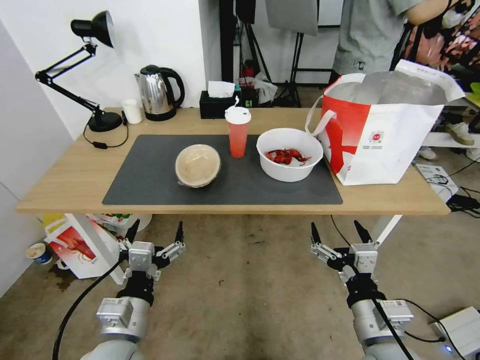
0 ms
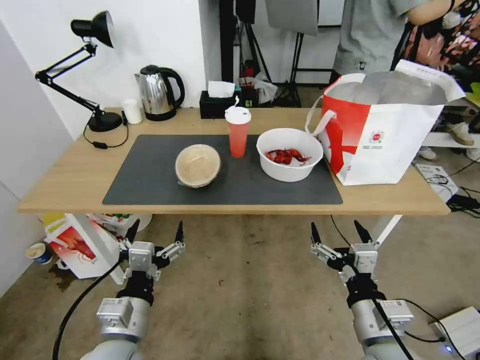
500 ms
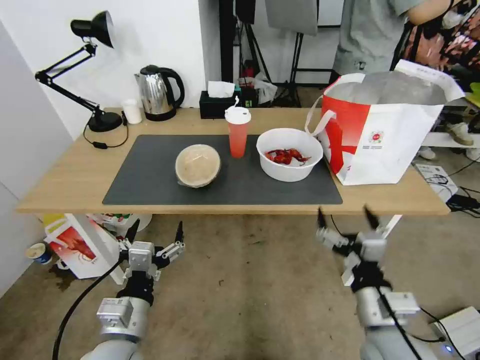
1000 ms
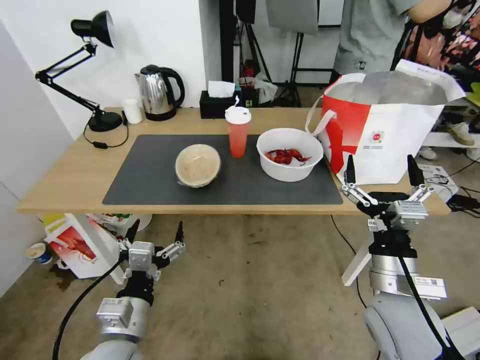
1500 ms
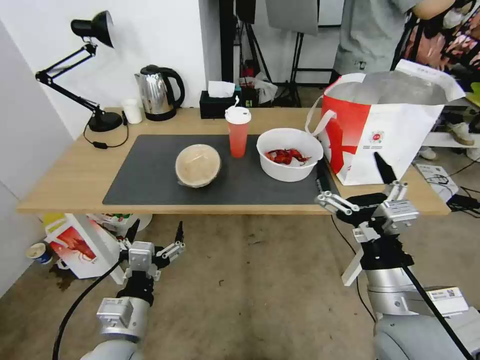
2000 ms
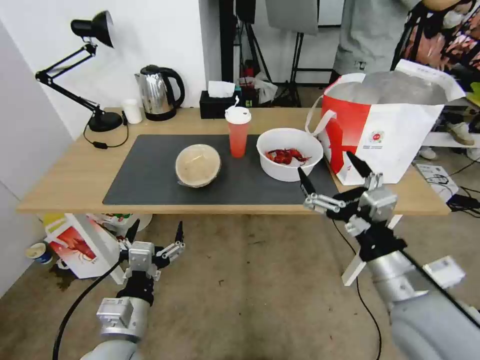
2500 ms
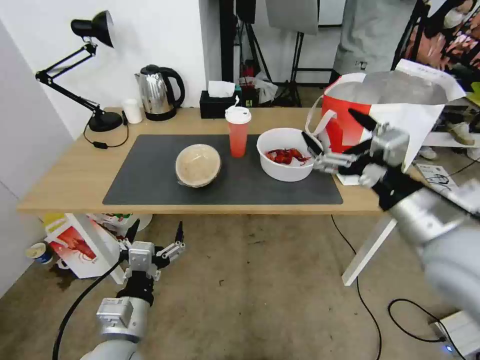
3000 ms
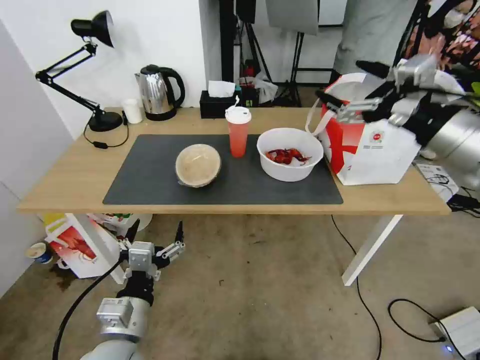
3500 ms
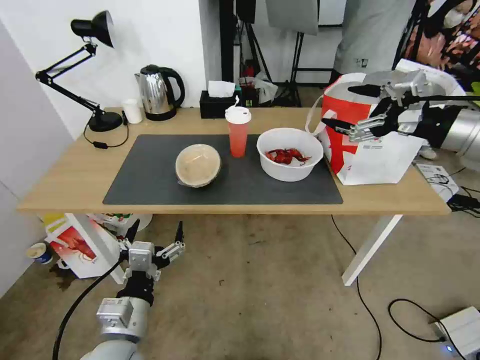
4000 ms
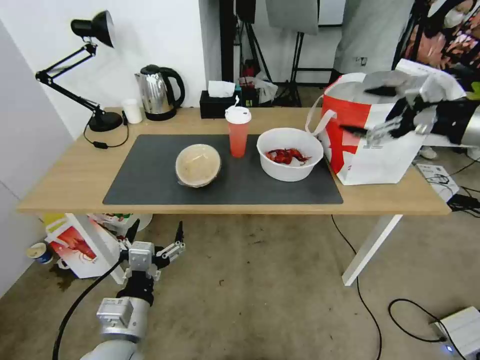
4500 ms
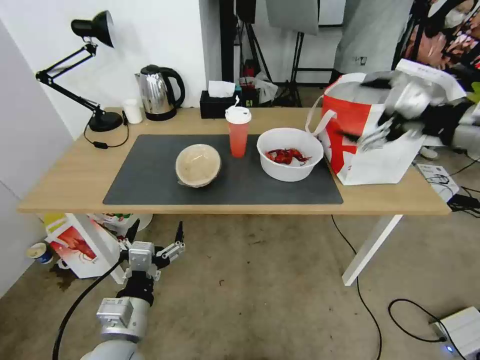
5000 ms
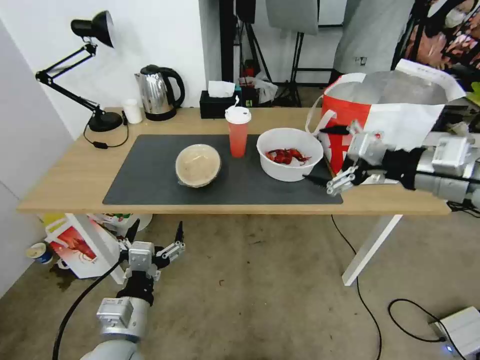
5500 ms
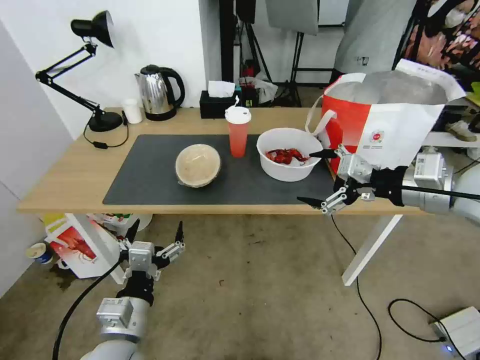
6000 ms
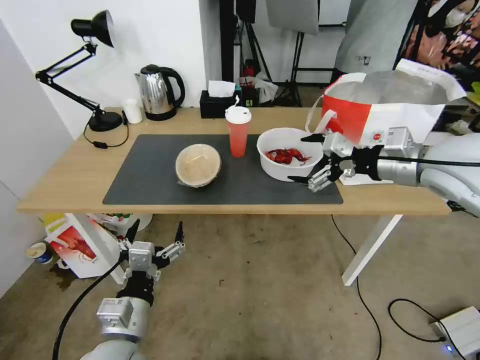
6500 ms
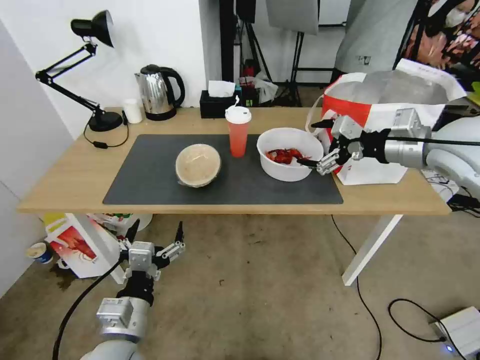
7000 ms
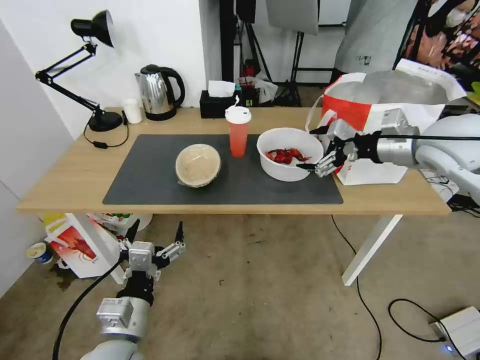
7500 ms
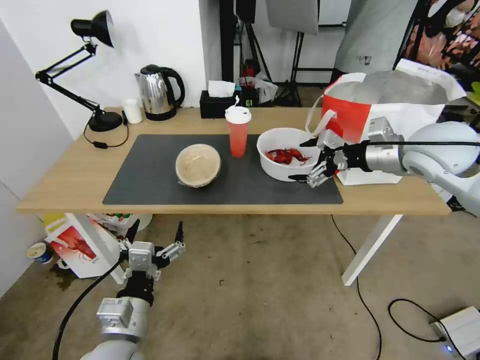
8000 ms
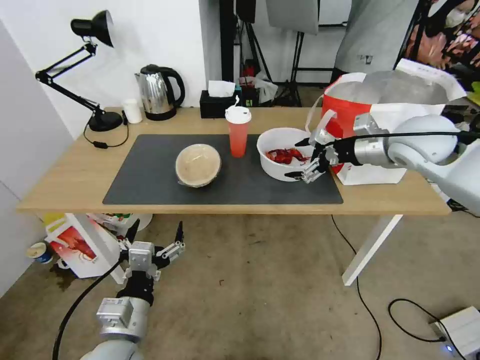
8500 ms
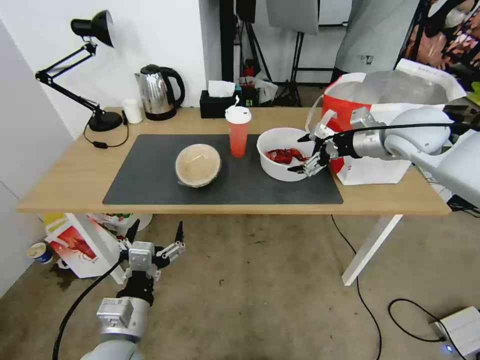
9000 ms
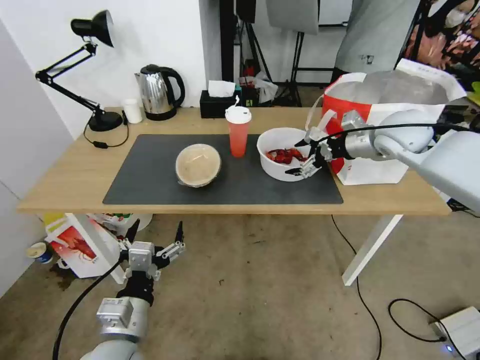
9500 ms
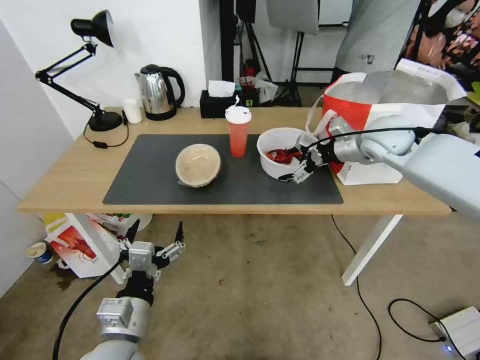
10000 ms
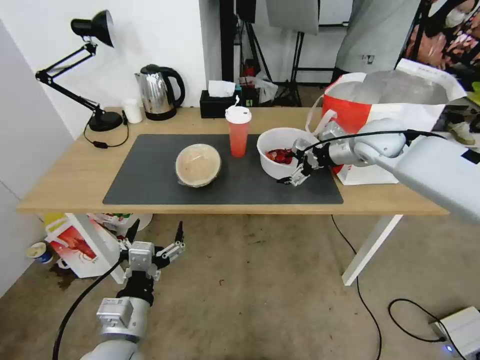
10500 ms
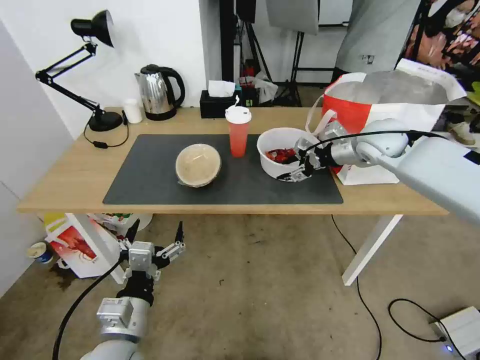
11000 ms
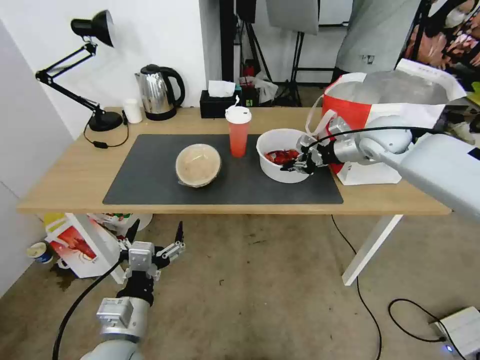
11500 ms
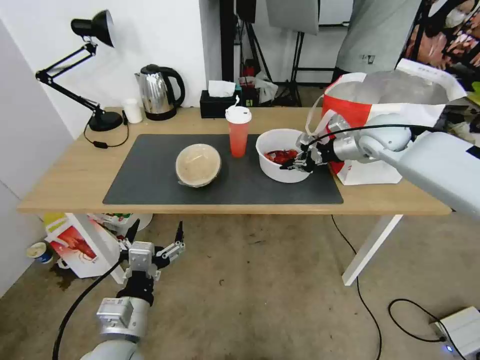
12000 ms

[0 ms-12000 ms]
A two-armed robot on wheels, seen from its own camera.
Task of the whole recording: Pick up the trash from the table and place it into the takeout bag.
2000 ms to 4000 ms: The right gripper shifts some 30 cm upward, forward and to the right.
4000 ms to 6000 ms: The right gripper is displaced to the left by about 5 cm.
6000 ms to 8000 ms: The right gripper travels forward by some 10 cm.
8000 ms to 10000 ms: The right gripper travels forward by some 10 cm.
10000 ms to 12000 ms: The right gripper closes its fingers.

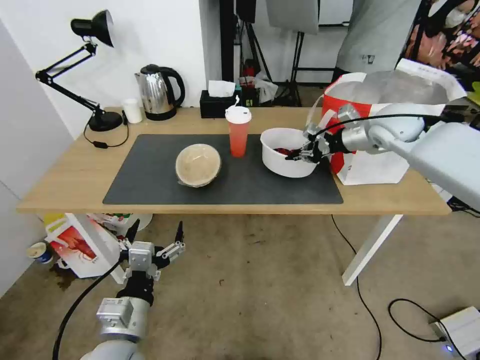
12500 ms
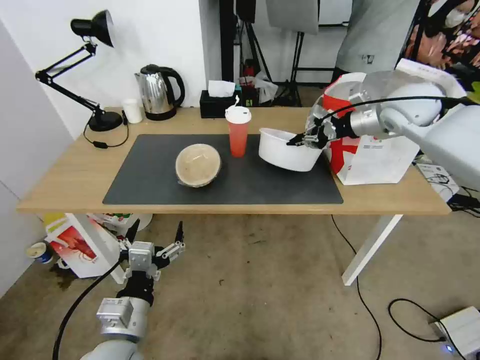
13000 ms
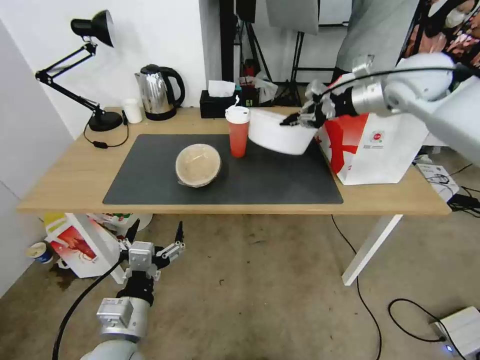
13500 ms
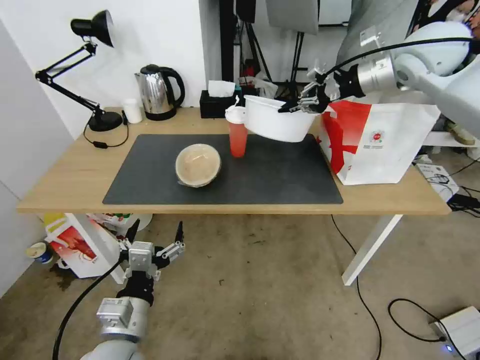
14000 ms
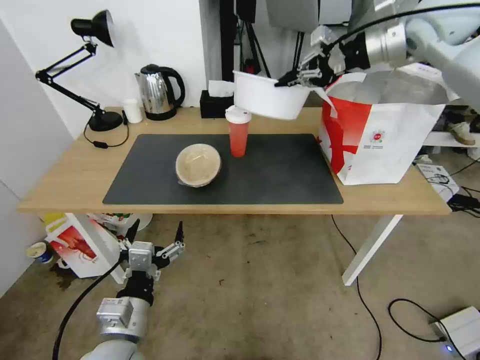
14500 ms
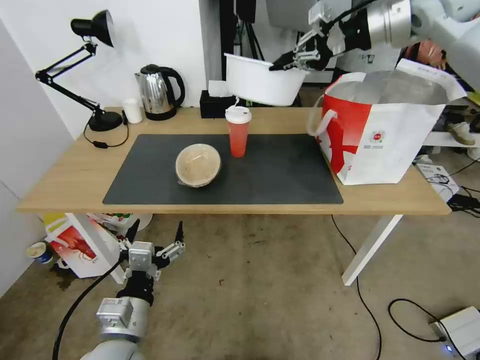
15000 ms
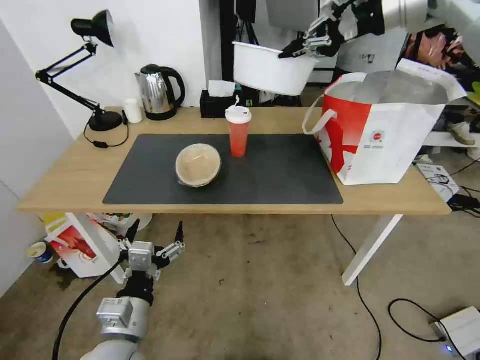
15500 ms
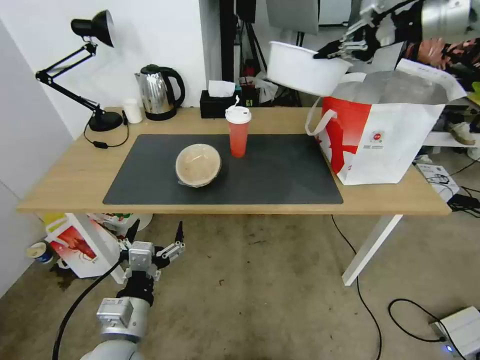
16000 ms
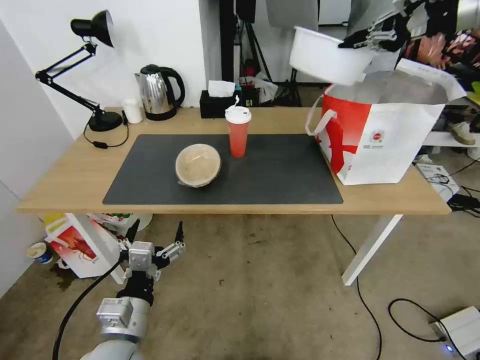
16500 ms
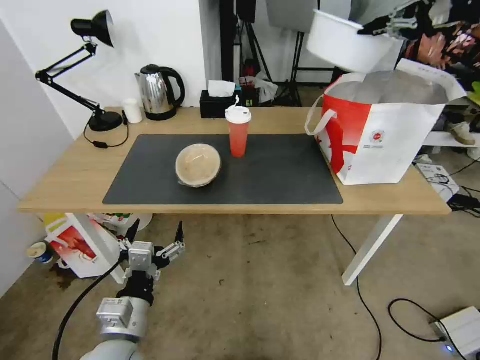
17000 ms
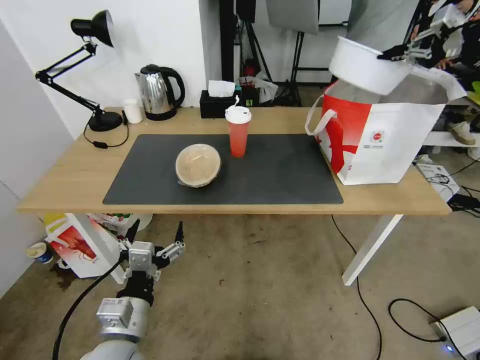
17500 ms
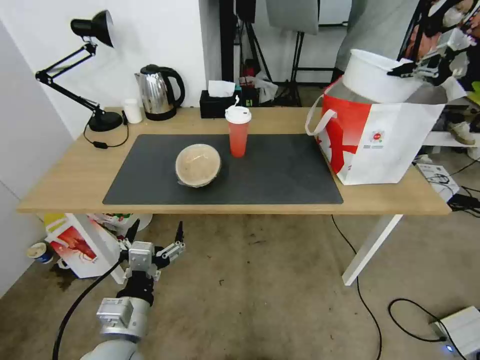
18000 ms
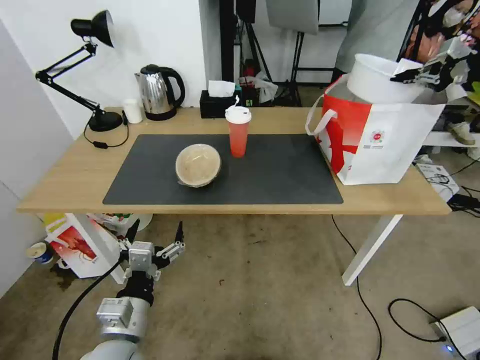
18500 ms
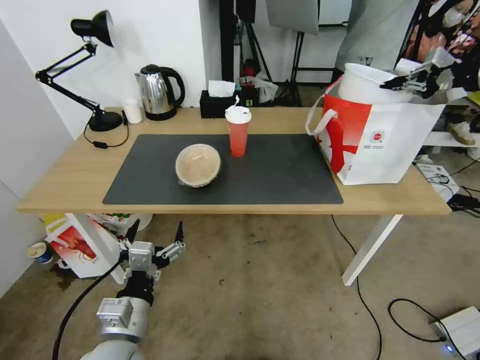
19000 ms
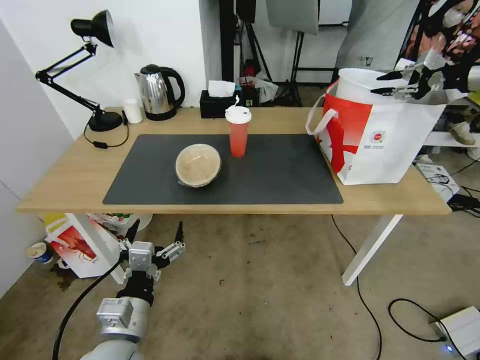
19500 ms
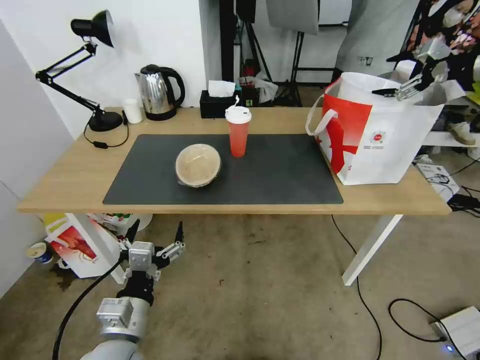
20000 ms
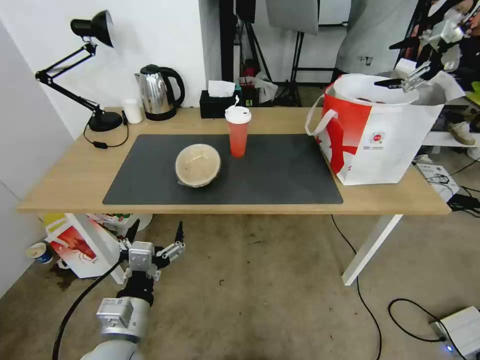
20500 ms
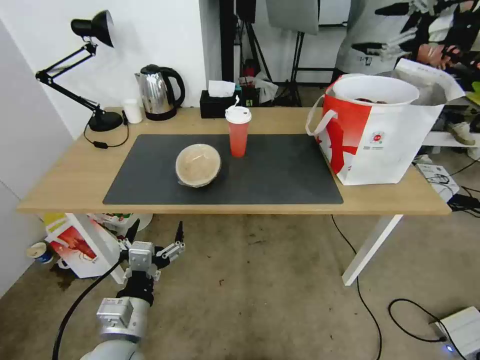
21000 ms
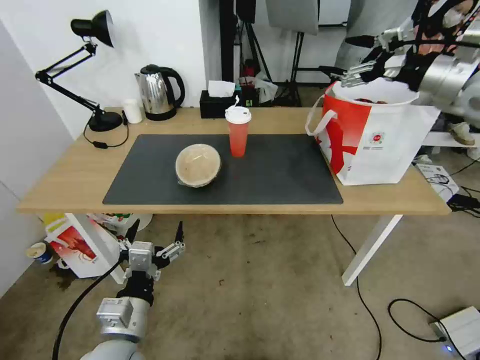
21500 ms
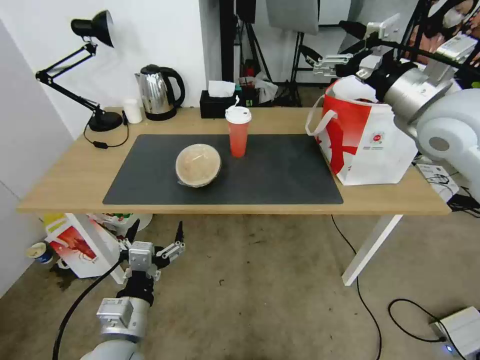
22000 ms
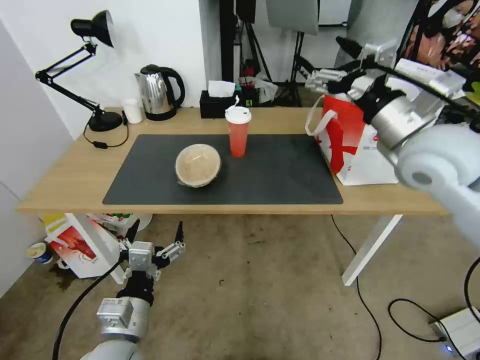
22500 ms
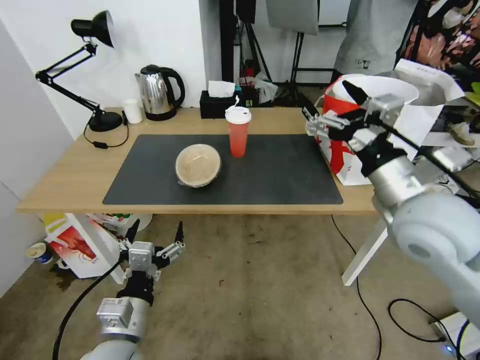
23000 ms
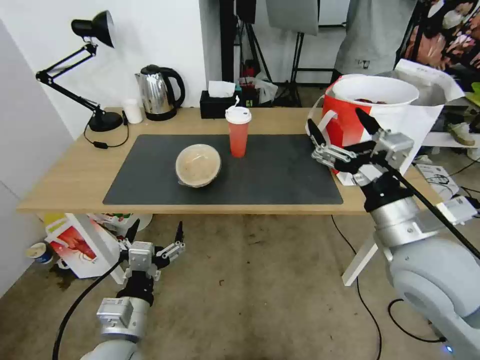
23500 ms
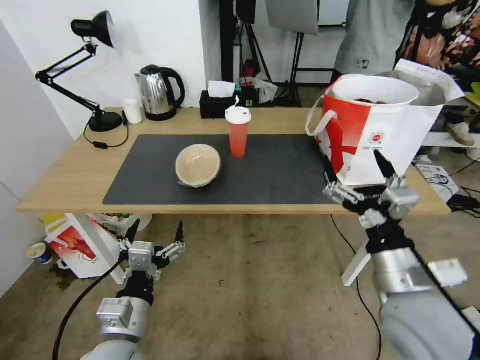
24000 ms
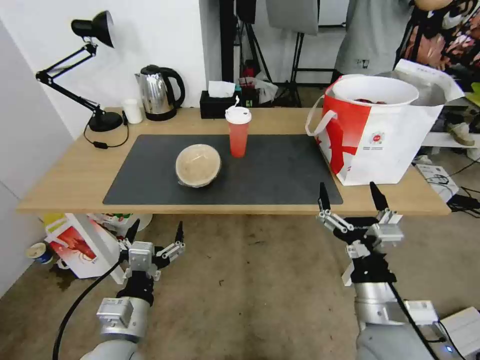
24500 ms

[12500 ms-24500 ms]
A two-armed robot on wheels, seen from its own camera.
Task of the whole recording: Pick up the trash from the table and place it into the takeout bag.
12500 ms to 14500 ms: The right gripper goes about 20 cm upward.
14500 ms to 16500 ms: The right gripper heads to the right and upward, covering roughly 15 cm.
16500 ms to 18500 ms: The right gripper moves to the right and downward, some 15 cm.
18500 ms to 20500 ms: The right gripper ends up some 5 cm from where it was, and opens.
20500 ms to 22500 ms: The right gripper shifts some 30 cm to the left, backward and downward.
22500 ms to 24500 ms: The right gripper is displaced downward and backward by about 30 cm.

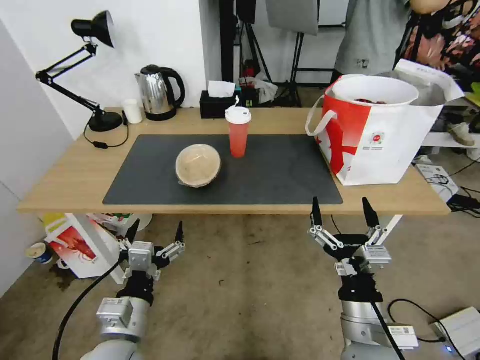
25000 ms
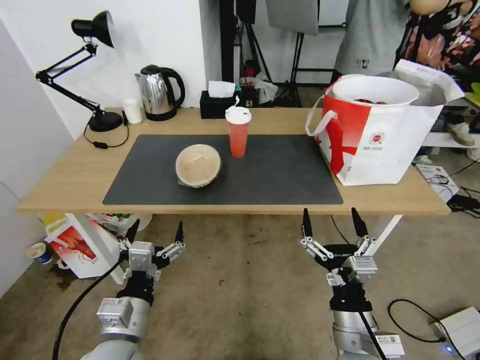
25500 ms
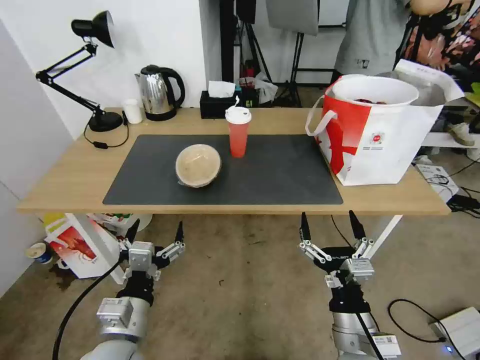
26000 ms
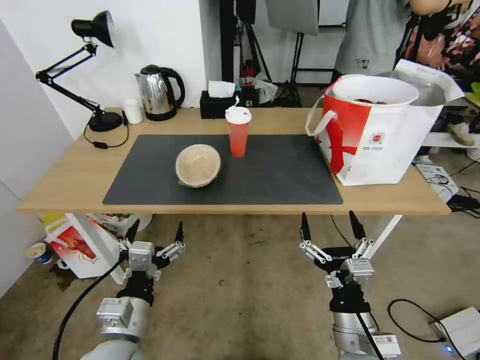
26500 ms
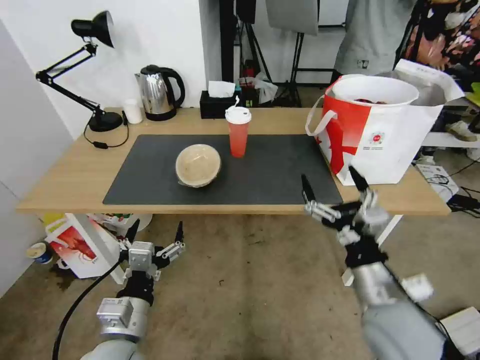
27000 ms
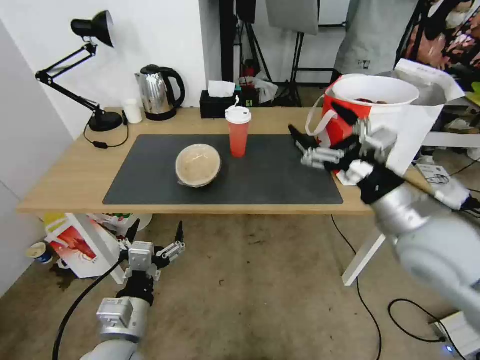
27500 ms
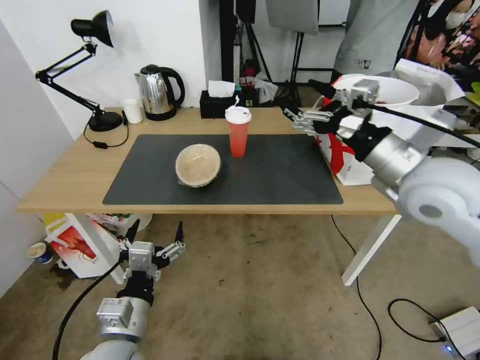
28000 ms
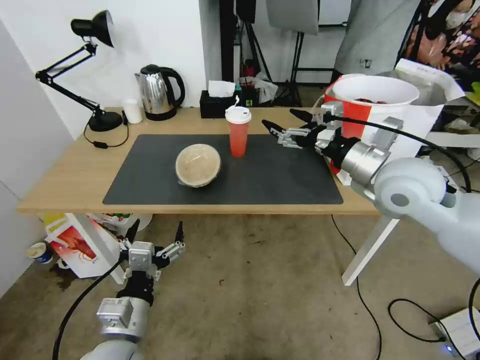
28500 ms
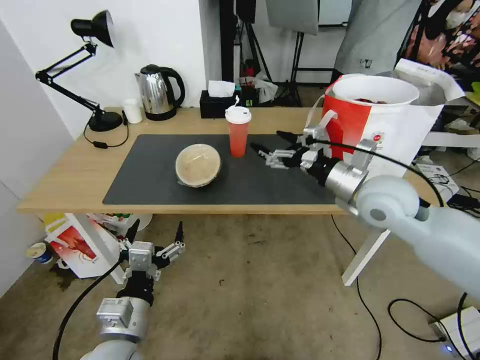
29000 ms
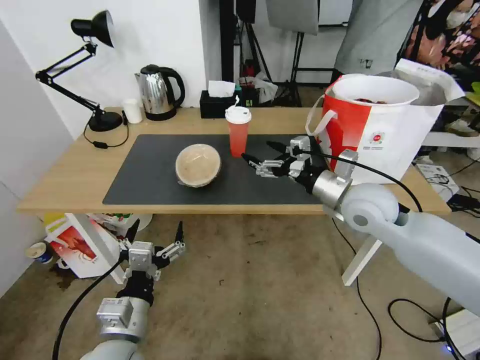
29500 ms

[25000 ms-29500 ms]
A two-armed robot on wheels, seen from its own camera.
Task of the whole recording: Pick up the trash from the table and place it into the takeout bag.
25000 ms to 27000 ms: The right gripper moves about 5 cm.
27000 ms to 29500 ms: The right gripper travels forward and upward by approximately 20 cm.
